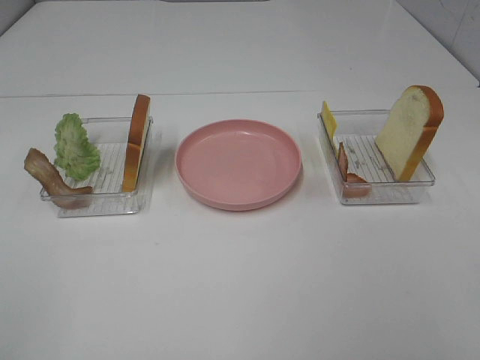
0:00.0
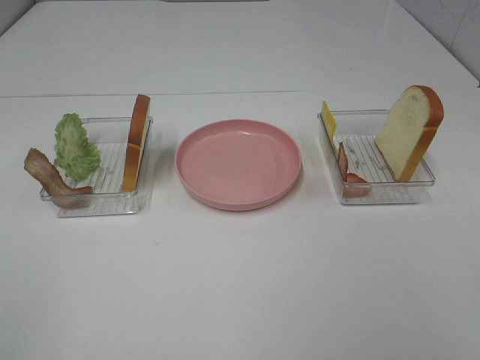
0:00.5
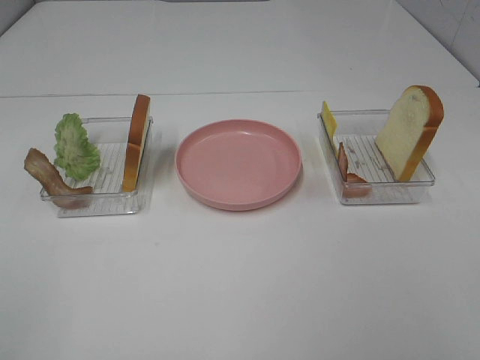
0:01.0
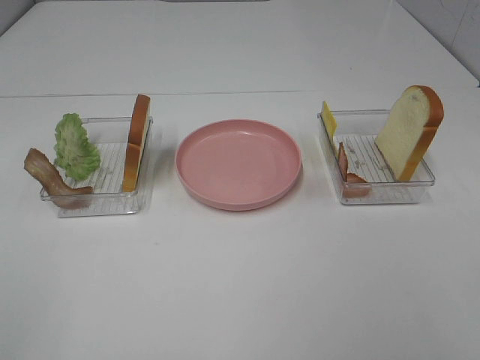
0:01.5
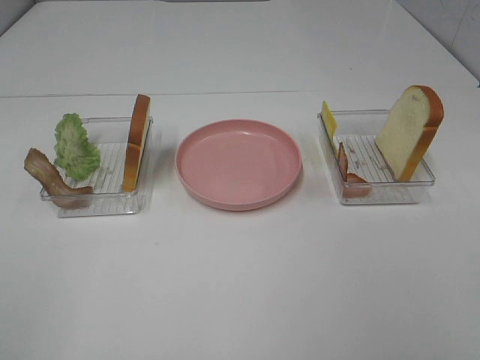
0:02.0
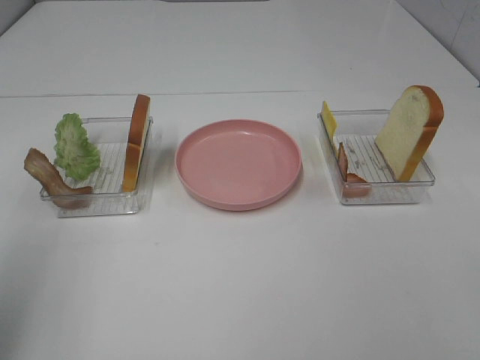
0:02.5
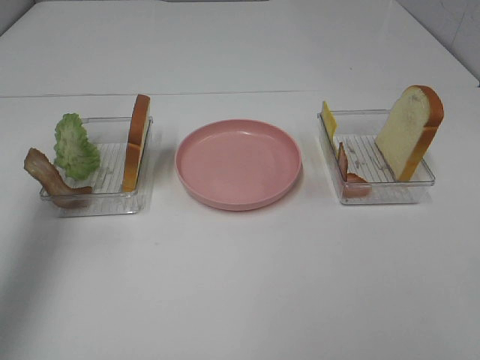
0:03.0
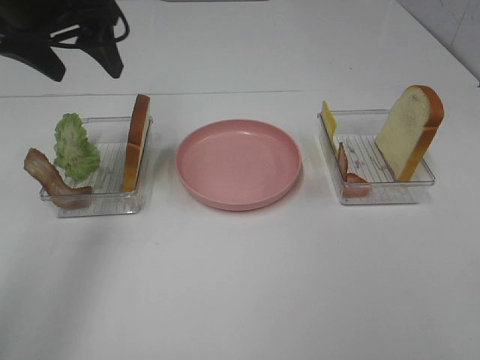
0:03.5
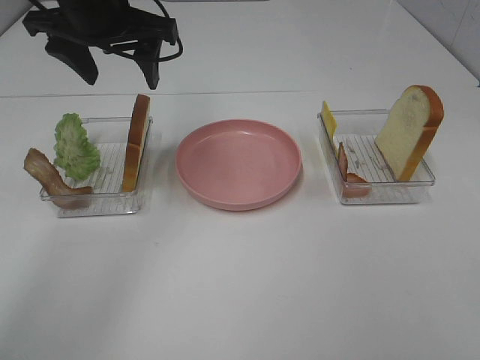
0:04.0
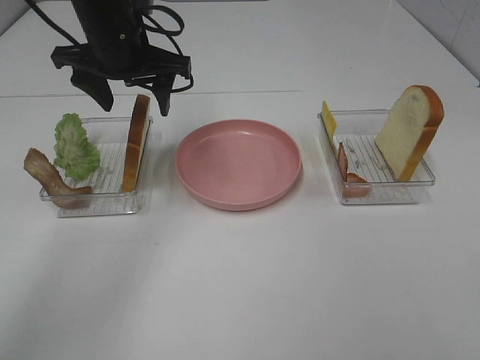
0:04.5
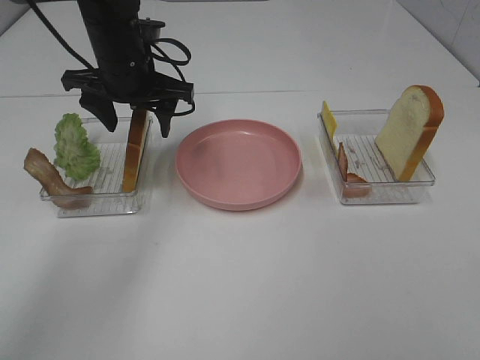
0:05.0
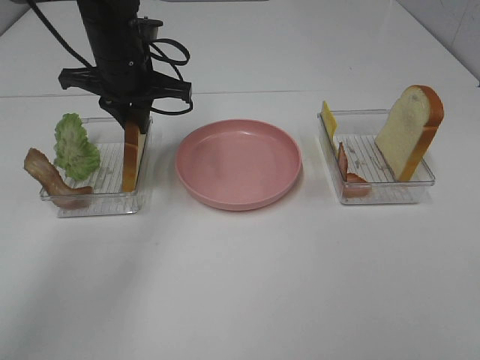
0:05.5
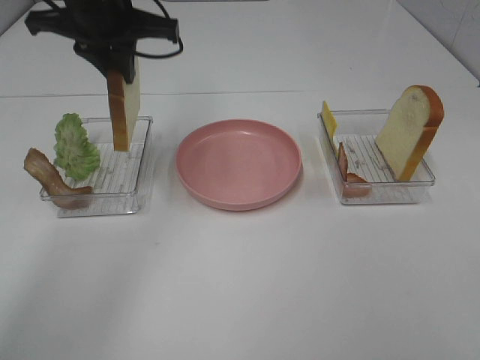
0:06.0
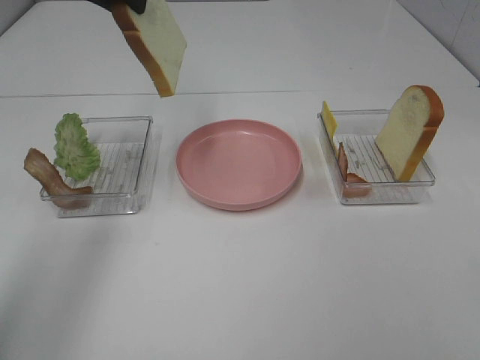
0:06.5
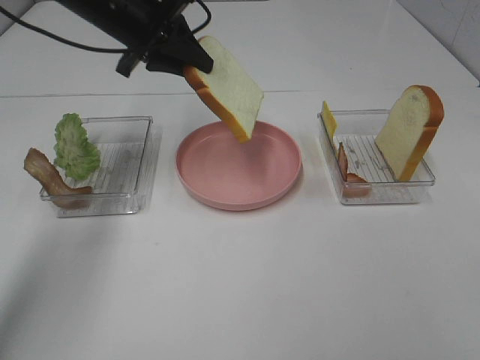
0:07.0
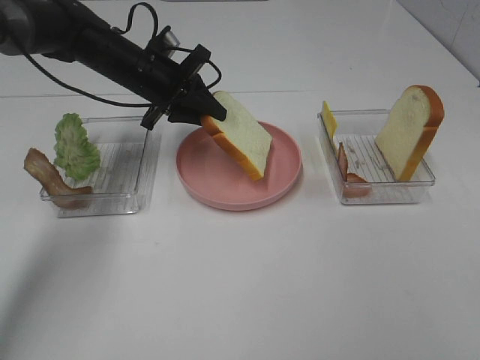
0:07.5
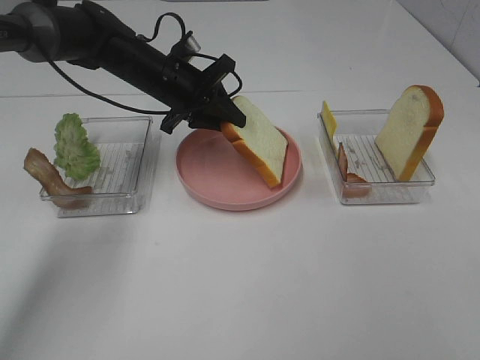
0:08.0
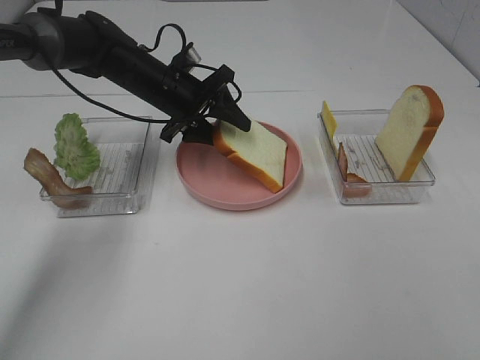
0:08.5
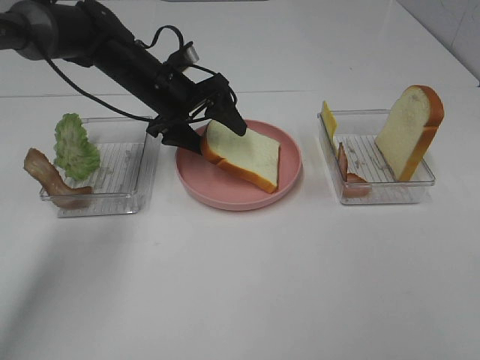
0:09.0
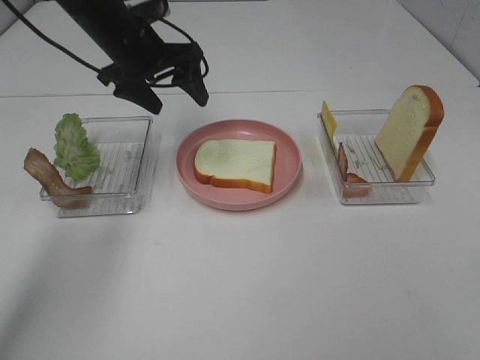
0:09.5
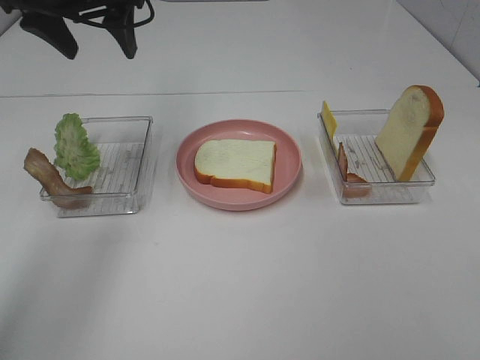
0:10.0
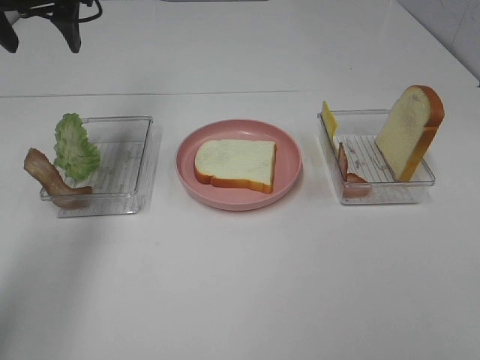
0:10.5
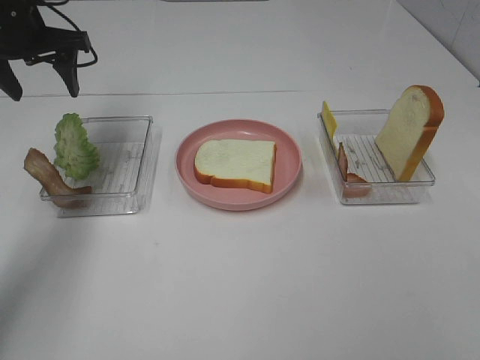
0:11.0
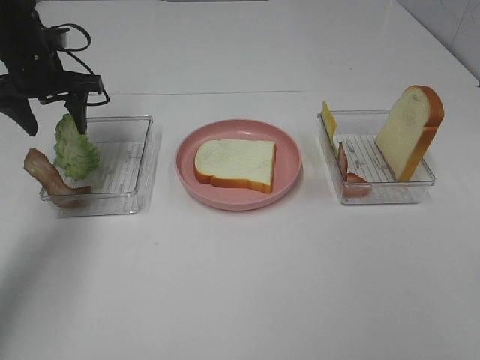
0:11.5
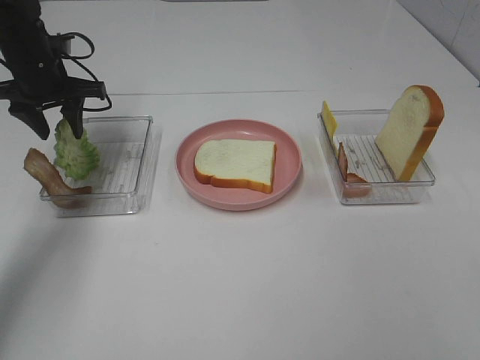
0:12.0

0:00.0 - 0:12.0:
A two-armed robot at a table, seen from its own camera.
Task of the whole recording: Make sandwiches.
Step, 0:00.0 - 0:05.5: Left hand:grab the bread slice.
Step, 0:06.0 - 0:09.0: Left hand:place the bread slice on the plate.
0:02.0 - 0:04.0: The left gripper moves forward and to the right, roughly 40 cm.
0:04.0 - 0:06.0: The left gripper travels downward and back again, approximately 10 cm each way, and closes up.
0:06.0 - 0:08.0: The left gripper is displaced downward and forward by some 15 cm.
0:08.0 - 0:10.0: The left gripper moves upward and to the left, roughly 20 cm, and opens its fingers.
0:10.0 - 0:12.0: The left gripper moves downward and to the left, some 15 cm.

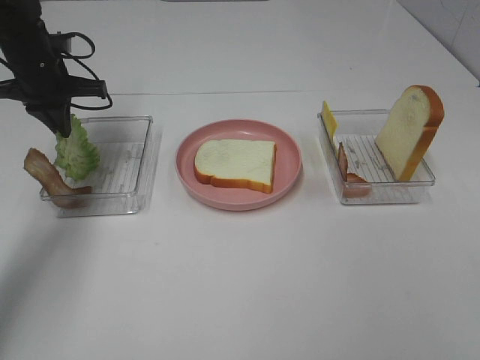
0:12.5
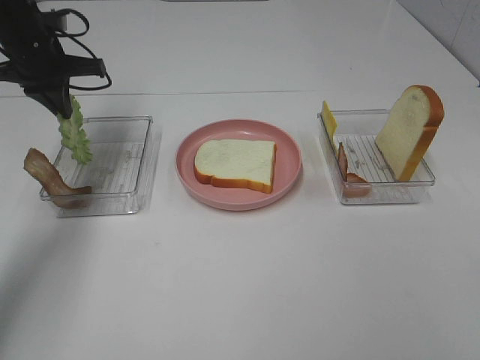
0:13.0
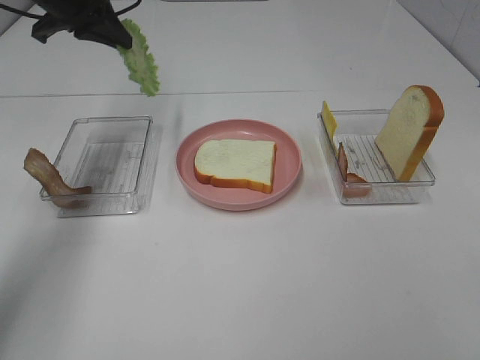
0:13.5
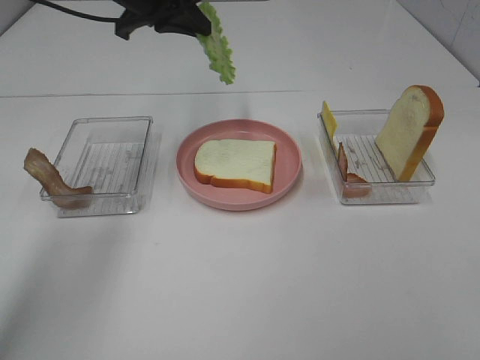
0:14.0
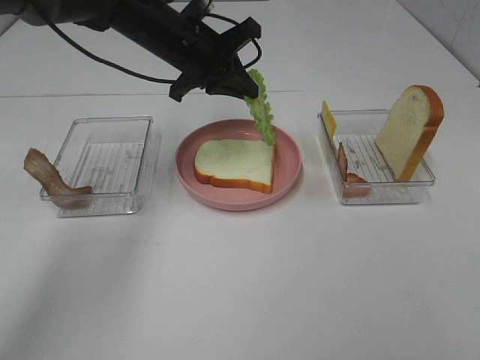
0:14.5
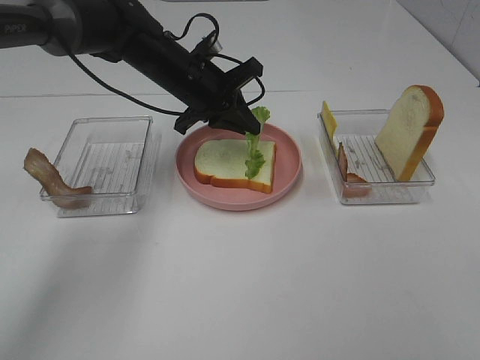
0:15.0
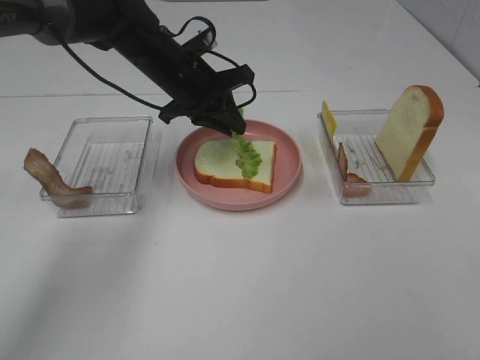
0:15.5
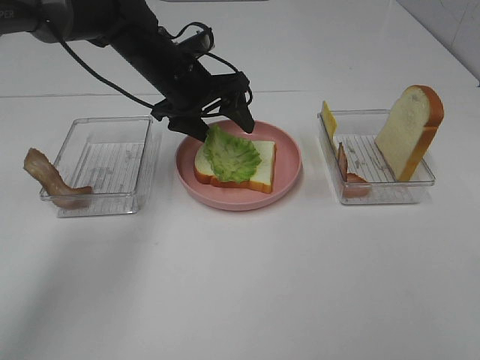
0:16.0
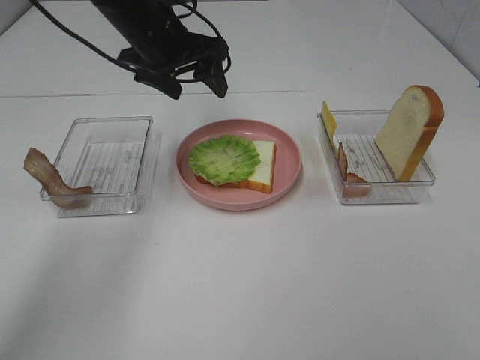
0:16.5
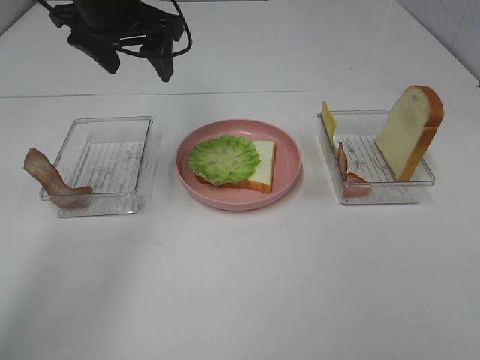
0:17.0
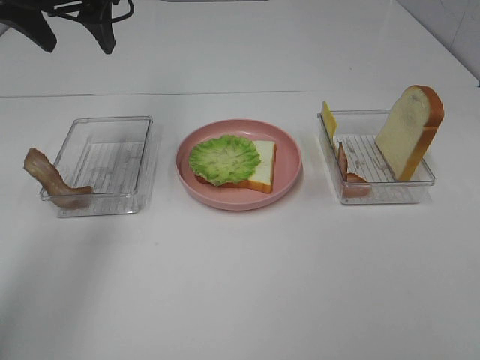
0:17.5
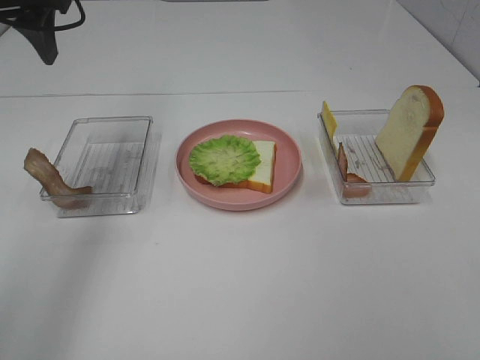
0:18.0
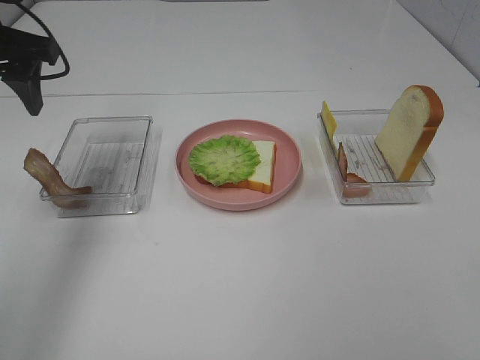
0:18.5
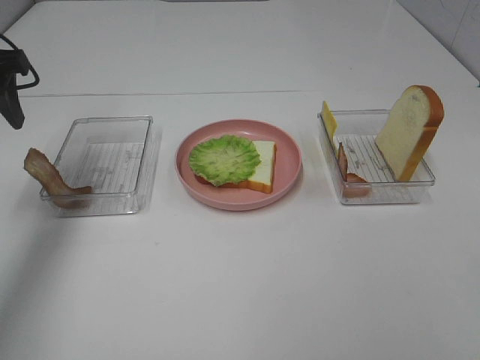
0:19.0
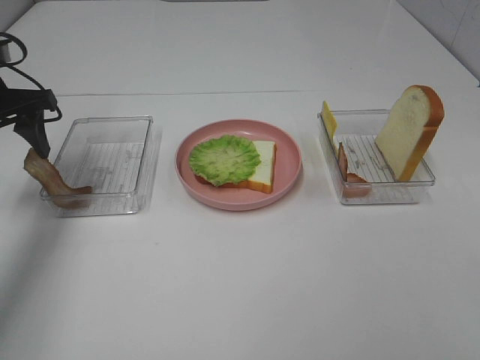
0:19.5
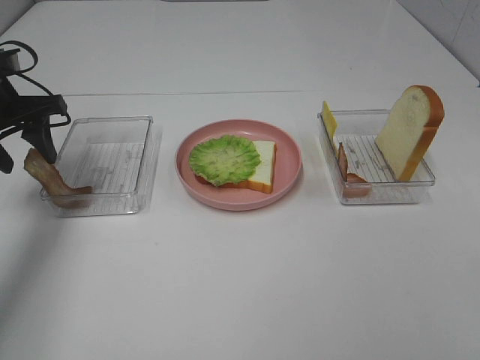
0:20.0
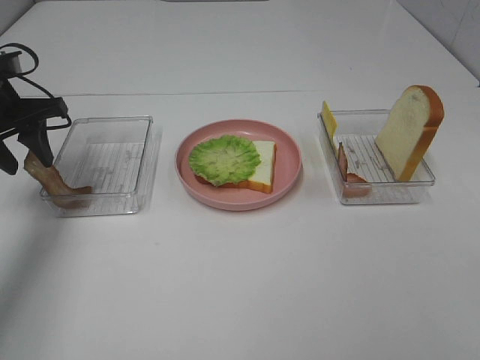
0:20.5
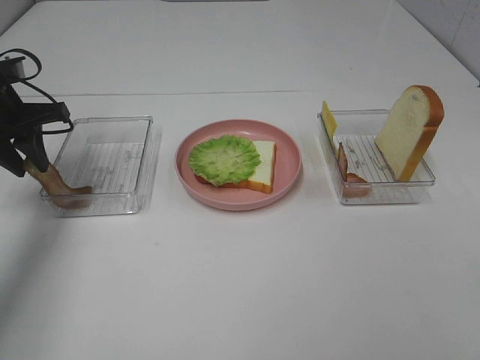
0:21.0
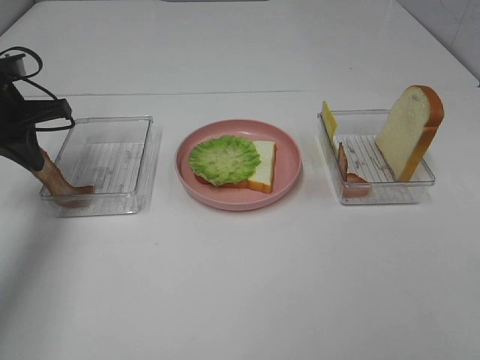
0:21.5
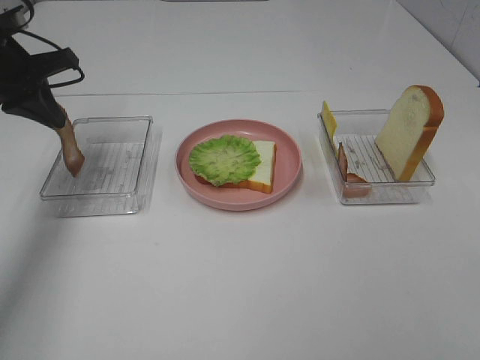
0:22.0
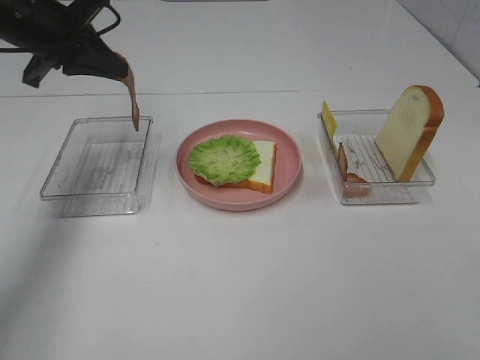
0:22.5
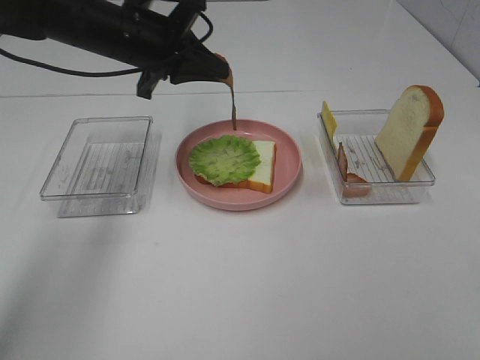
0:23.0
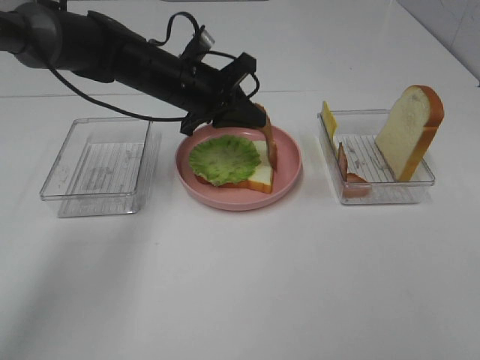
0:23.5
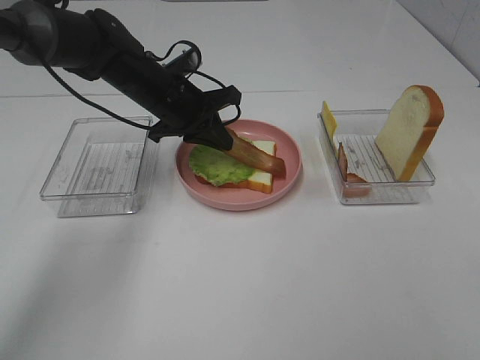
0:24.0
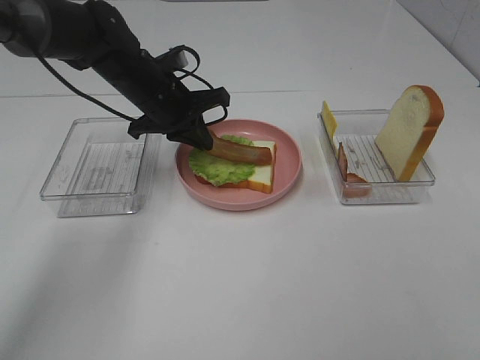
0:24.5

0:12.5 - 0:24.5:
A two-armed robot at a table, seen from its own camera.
Task of the whole recording: Make sandwiches.
Step, 0:13.0 - 0:16.0: Left hand:place the lettuce slice on the bread slice.
Step, 0:16.5 - 0:21.0: Left hand:grab the bacon.
0:12.5 - 0:14.5: The left gripper goes roughly 20 cm to the right.
0:14.5 - 0:16.5: The left gripper changes place by some 5 cm, and opens its fingers.
0:16.5 - 0:18.5: The left gripper goes approximately 15 cm to the left and backward.
0:18.5 - 0:20.5: The left gripper goes some 10 cm downward.
0:20.5 - 0:22.5: The left gripper travels upward and to the right by roughly 10 cm, and closes up.
0:22.5 - 0:24.5: The left gripper heads to the right and downward, covering some 15 cm.

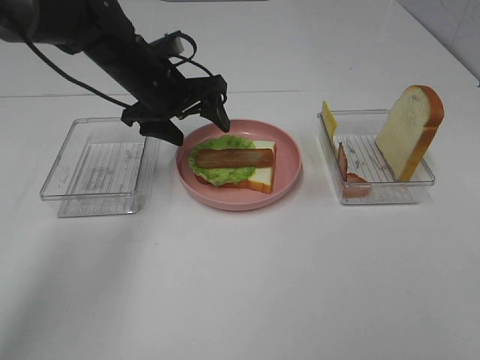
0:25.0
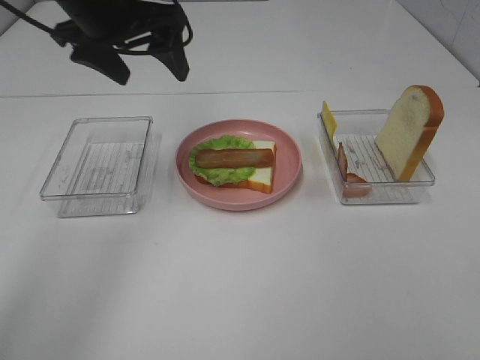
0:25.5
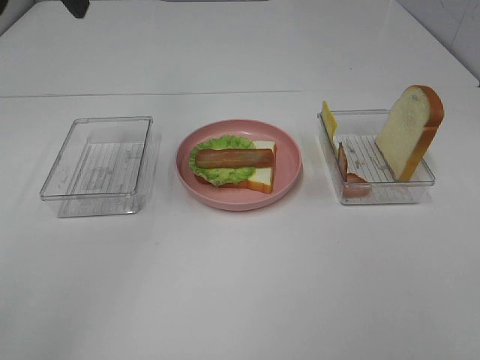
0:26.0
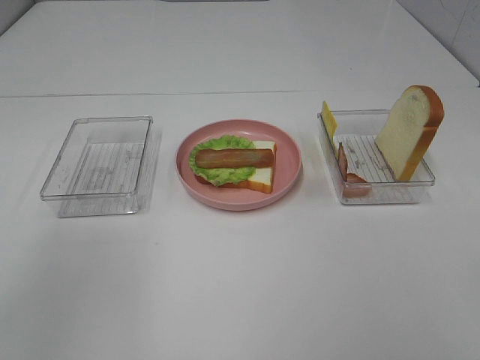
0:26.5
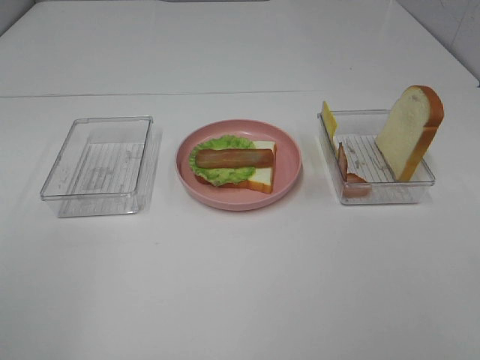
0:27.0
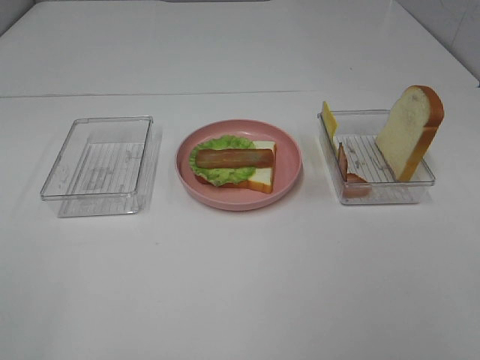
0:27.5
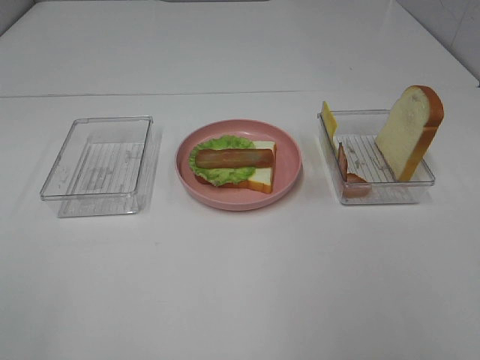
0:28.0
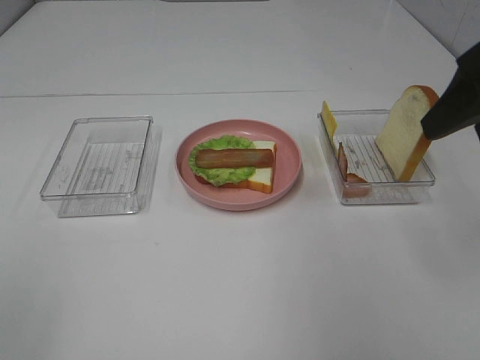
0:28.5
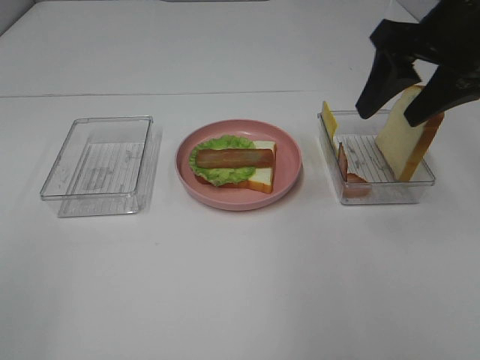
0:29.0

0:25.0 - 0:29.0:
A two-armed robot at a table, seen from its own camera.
Task of the whole recording: Make sandwiches.
0:25.0 - 0:27.0: The left gripper goes roughly 50 cm backward, to the left and upward.
0:27.0 - 0:29.0: The right gripper moves forward, about 35 cm.
